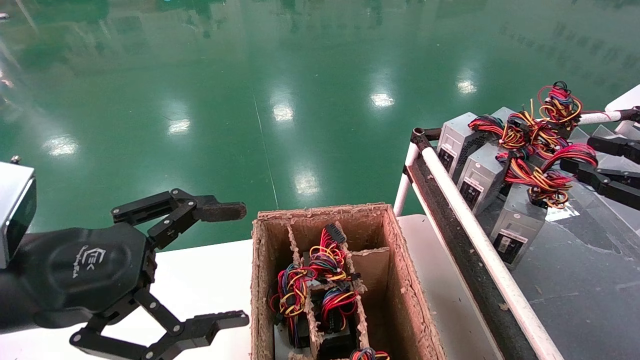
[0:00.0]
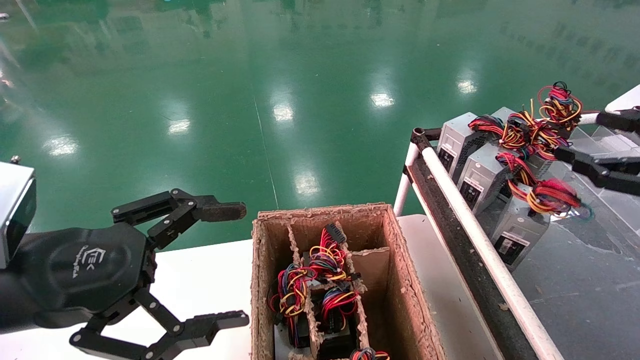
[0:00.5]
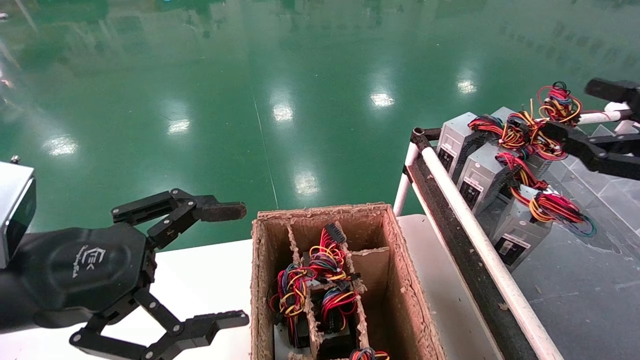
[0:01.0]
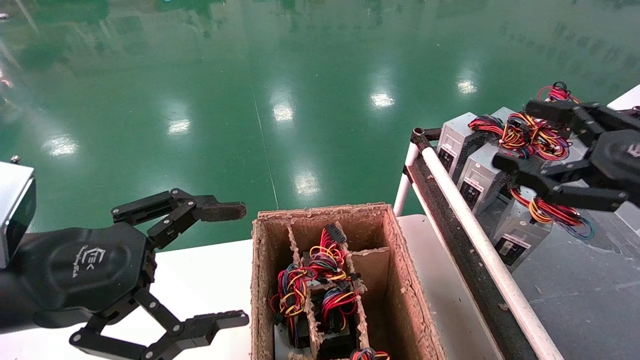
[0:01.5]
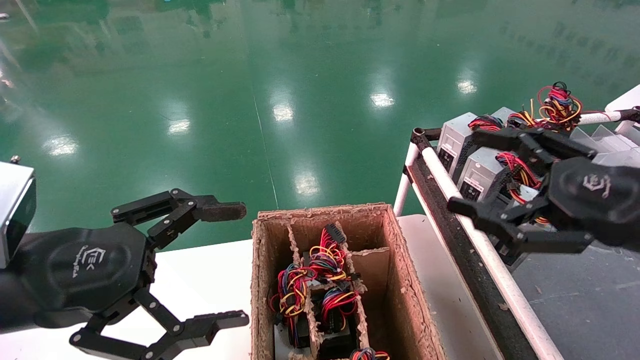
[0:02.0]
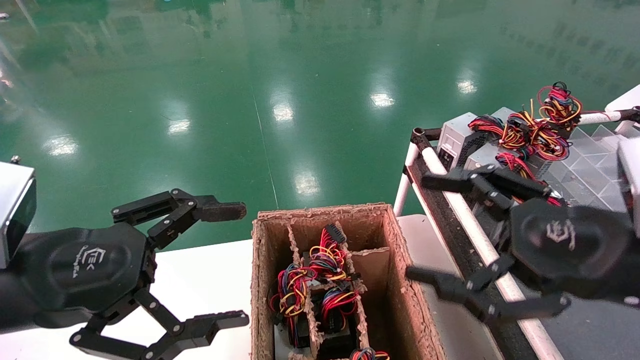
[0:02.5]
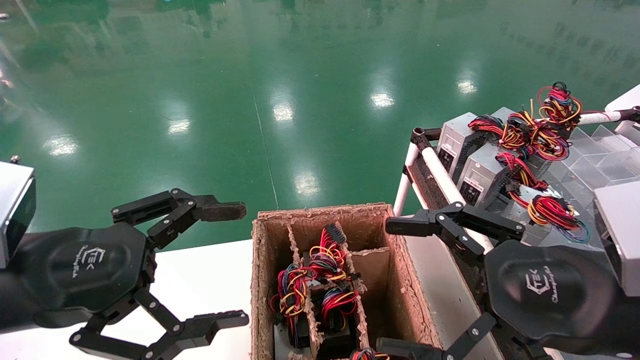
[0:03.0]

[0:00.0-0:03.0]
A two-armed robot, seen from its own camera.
0:00.0 to 0:01.5: The right gripper goes about 10 cm to the left, and opens its fingers.
0:01.5 to 0:03.0: The right gripper moves to the left and backward, roughly 15 cm.
